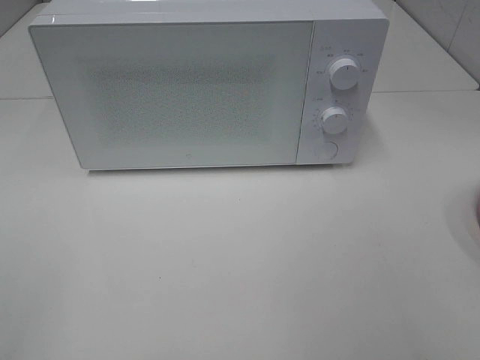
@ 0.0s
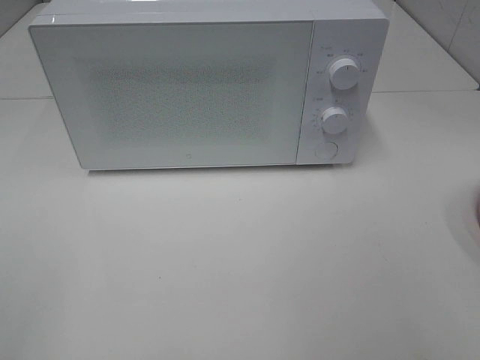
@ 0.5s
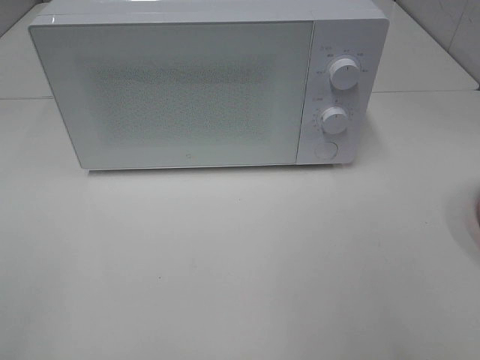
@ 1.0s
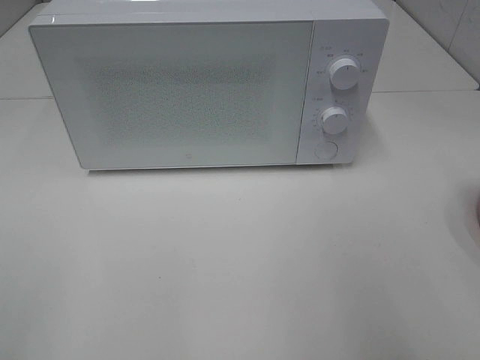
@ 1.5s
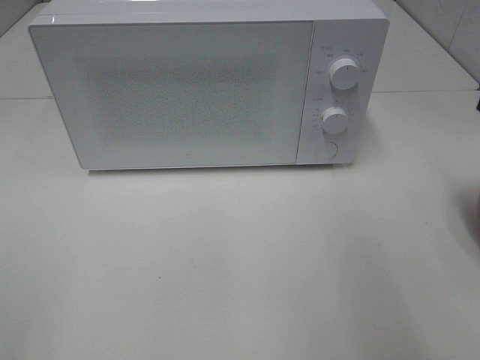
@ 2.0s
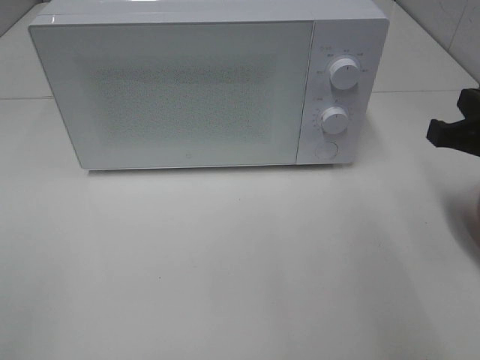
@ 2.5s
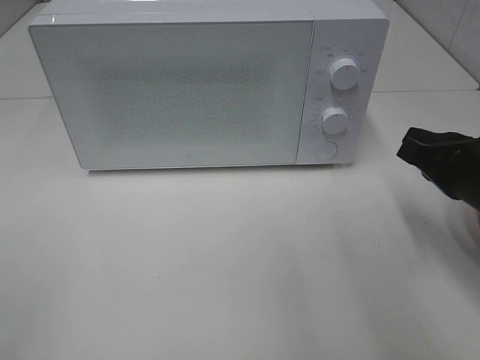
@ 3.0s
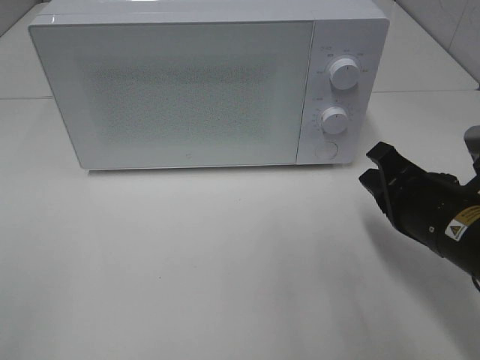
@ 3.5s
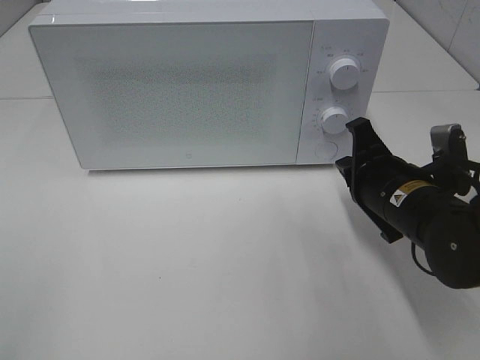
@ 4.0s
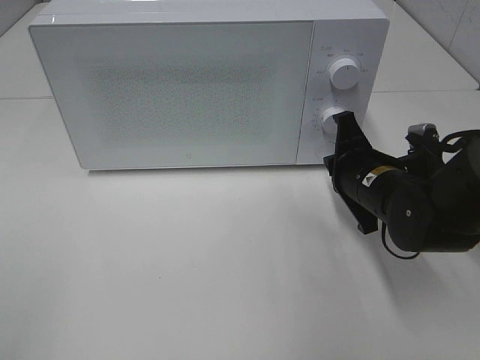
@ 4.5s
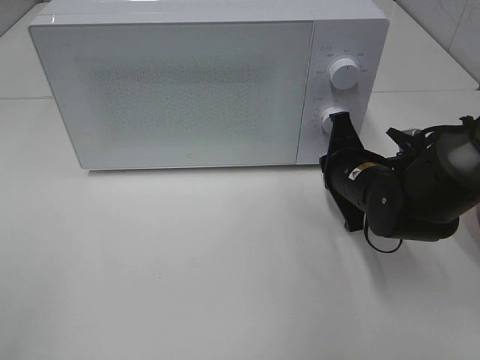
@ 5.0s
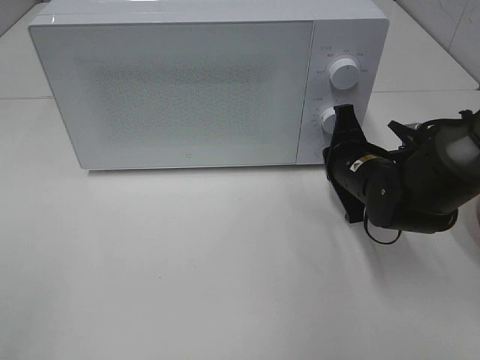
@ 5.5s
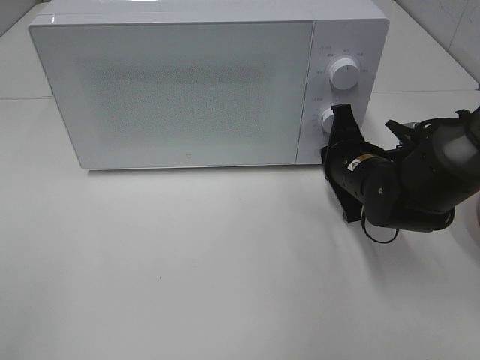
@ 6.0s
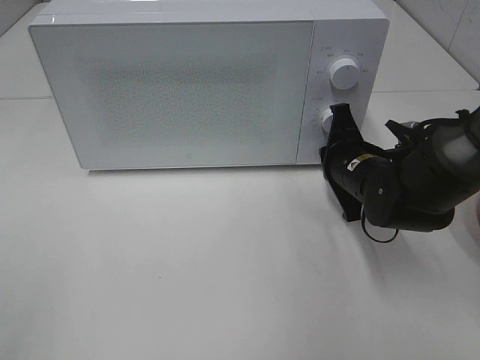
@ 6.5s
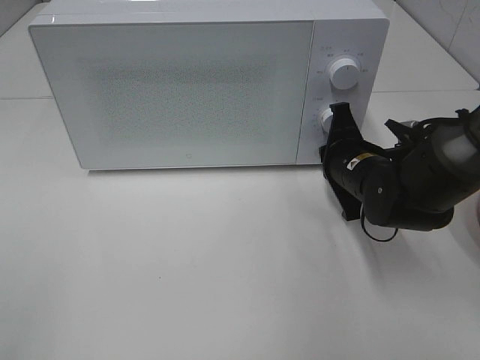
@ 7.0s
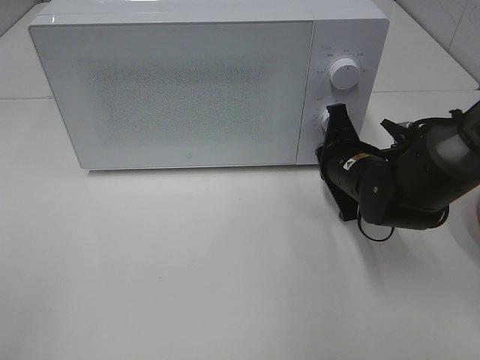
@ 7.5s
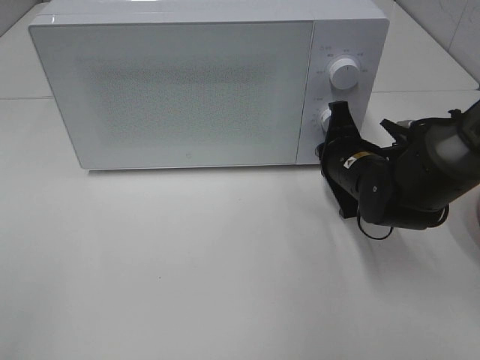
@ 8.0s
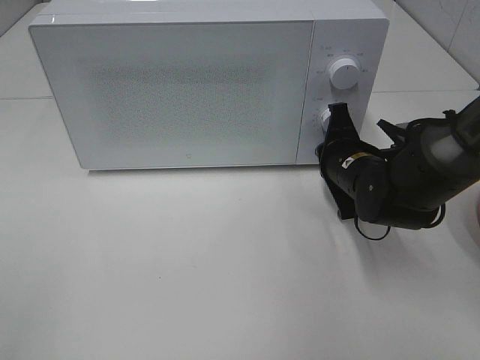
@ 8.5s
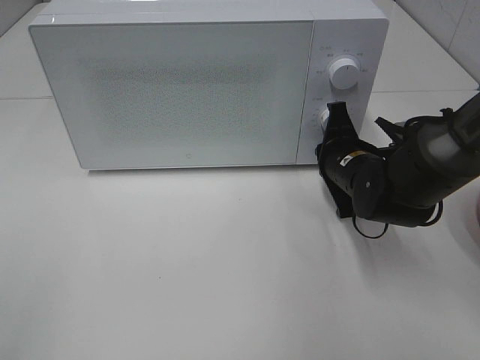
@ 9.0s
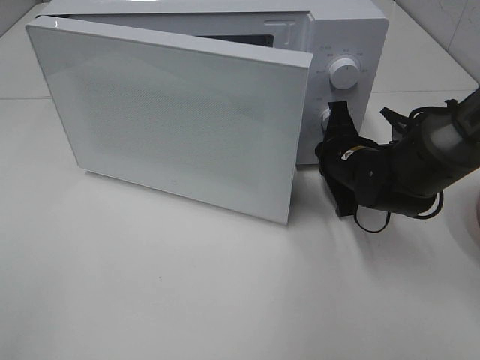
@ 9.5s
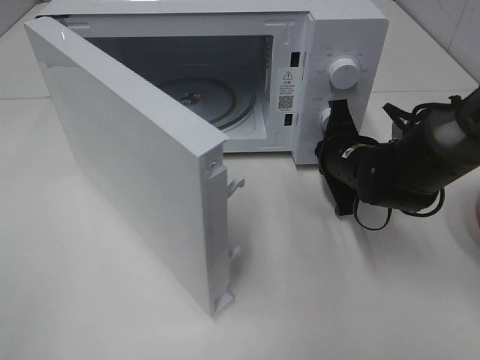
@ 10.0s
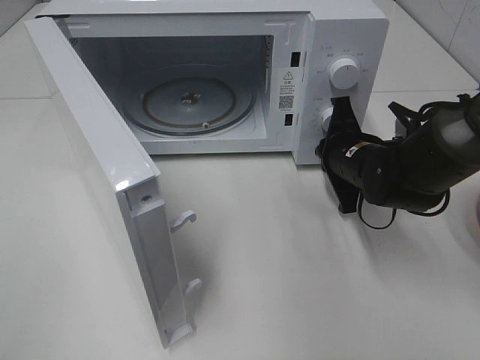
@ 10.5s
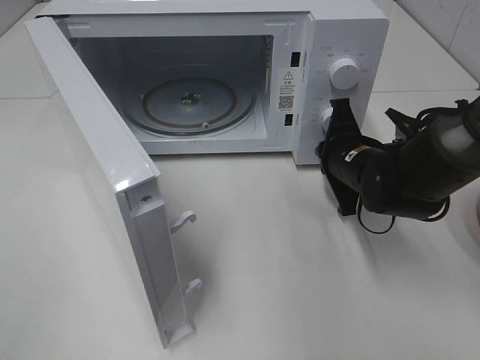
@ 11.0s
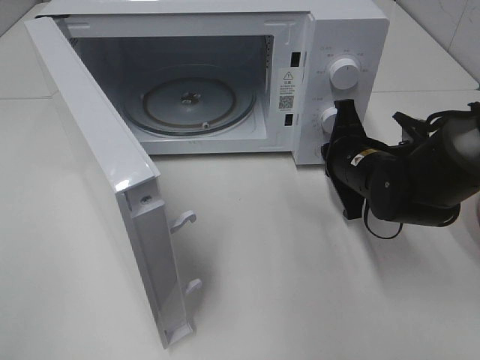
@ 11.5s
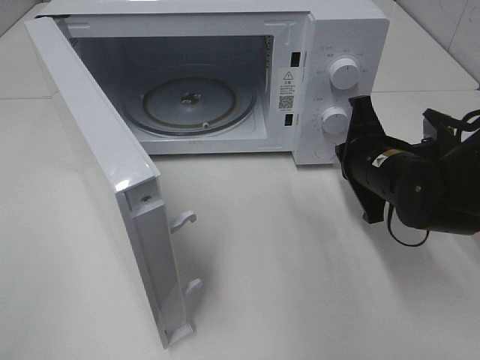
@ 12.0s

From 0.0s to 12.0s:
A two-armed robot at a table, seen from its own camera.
Task of the whole recording: Heat the burger.
Step, from 0.0s to 11.5s: Right hand: press the switch.
From 2.0s to 4.0s: The right gripper moves downward, to the left and forward, roughly 20 cm.
From 4.0s to 6.0s: The right gripper travels forward by about 5 cm.
From 6.0s to 8.0s: Both grippers stay about where they are.
From 10.0s to 12.0s: The right gripper ends up some 5 cm from where it was.

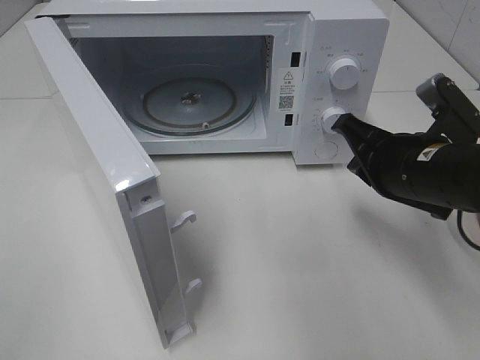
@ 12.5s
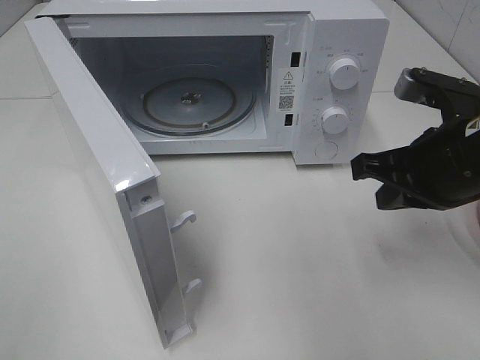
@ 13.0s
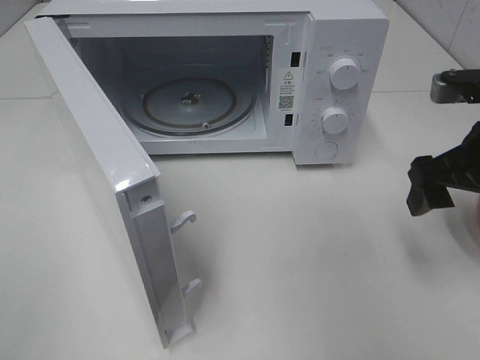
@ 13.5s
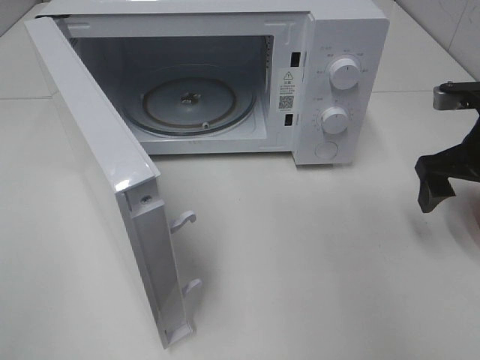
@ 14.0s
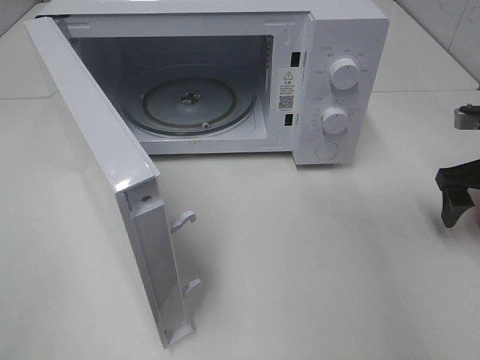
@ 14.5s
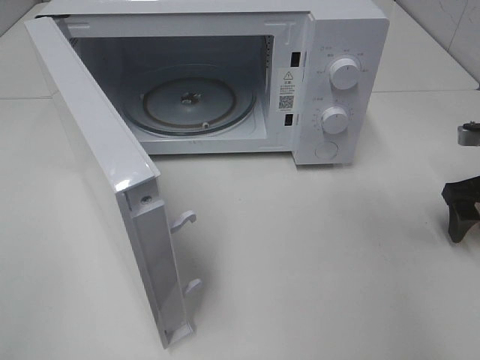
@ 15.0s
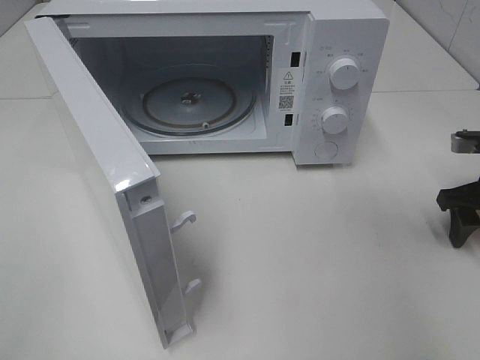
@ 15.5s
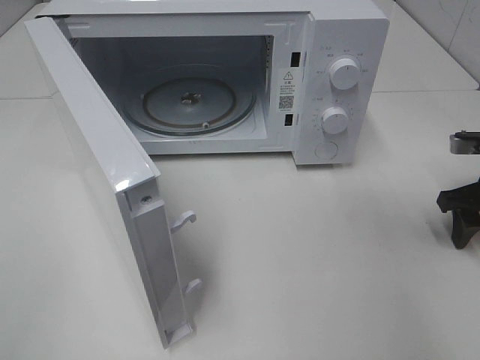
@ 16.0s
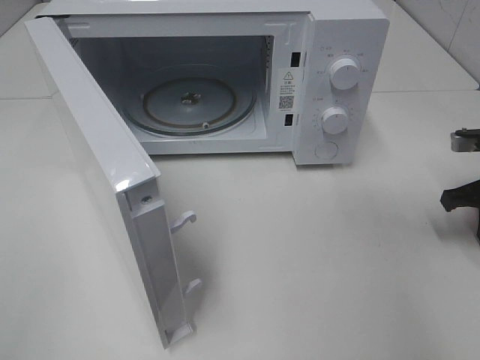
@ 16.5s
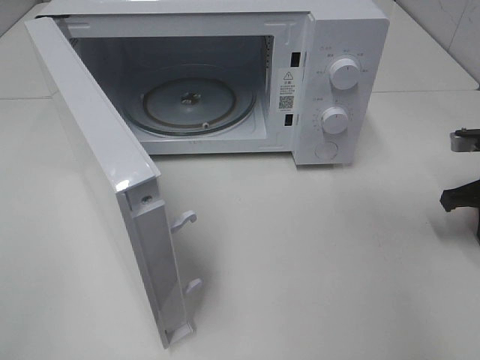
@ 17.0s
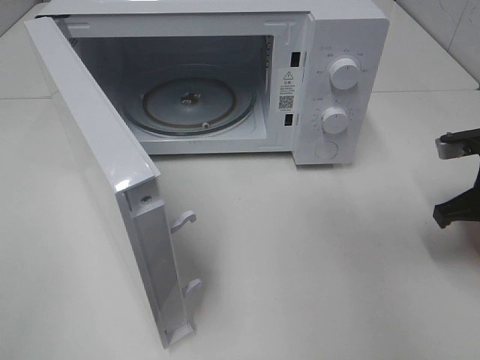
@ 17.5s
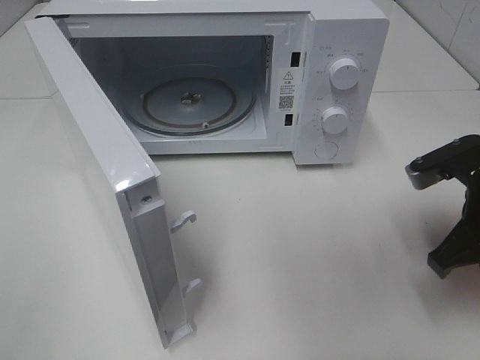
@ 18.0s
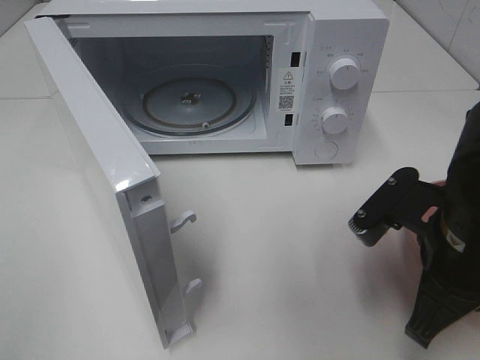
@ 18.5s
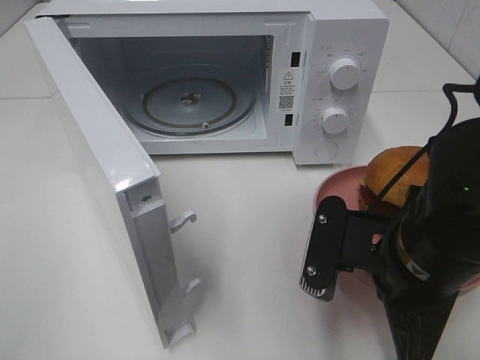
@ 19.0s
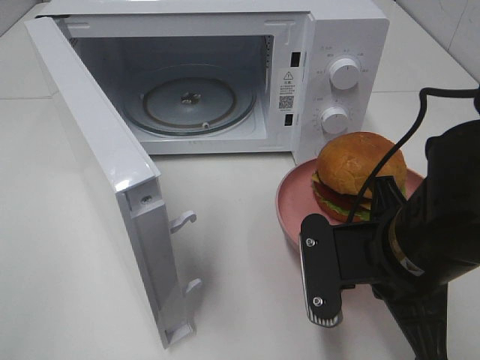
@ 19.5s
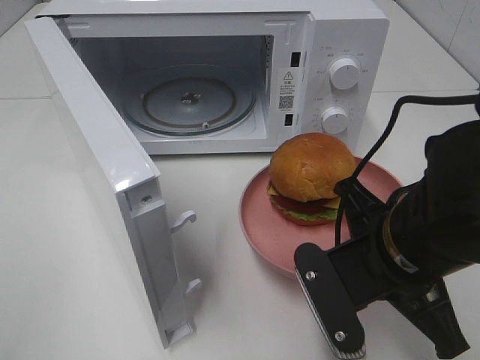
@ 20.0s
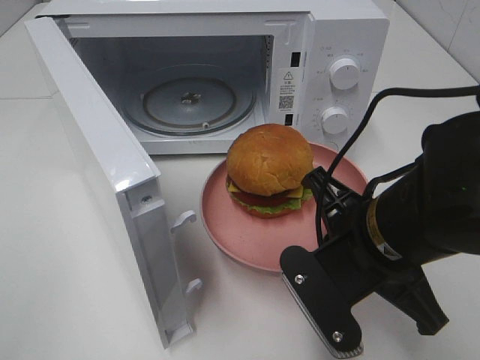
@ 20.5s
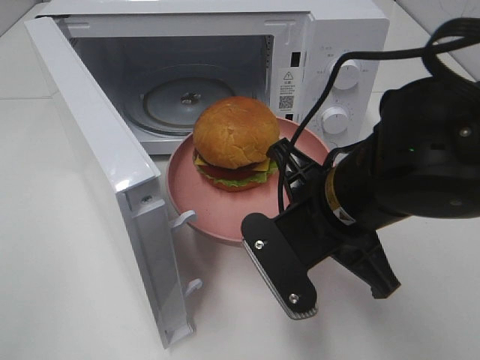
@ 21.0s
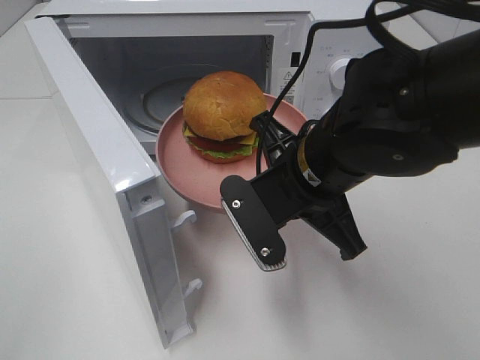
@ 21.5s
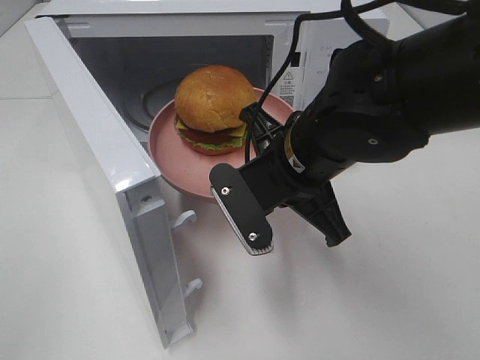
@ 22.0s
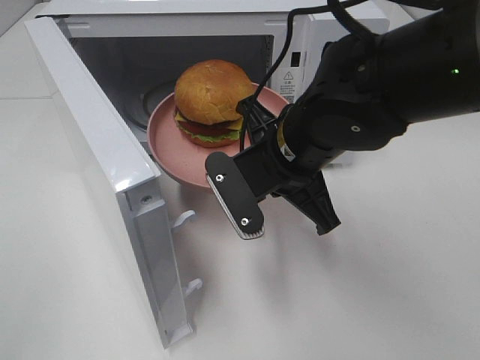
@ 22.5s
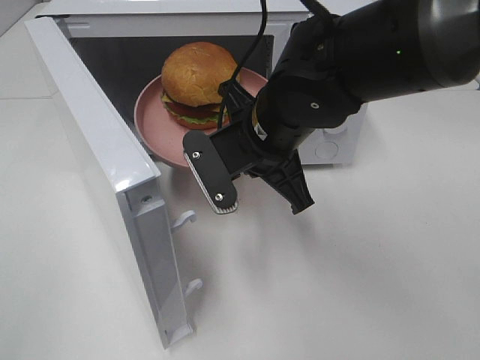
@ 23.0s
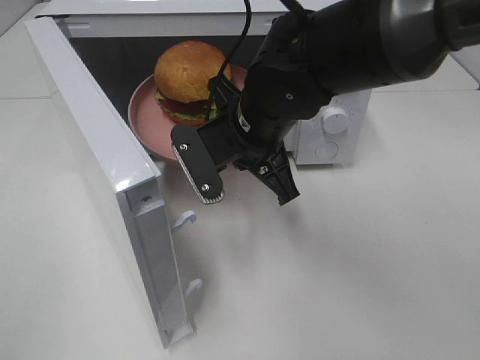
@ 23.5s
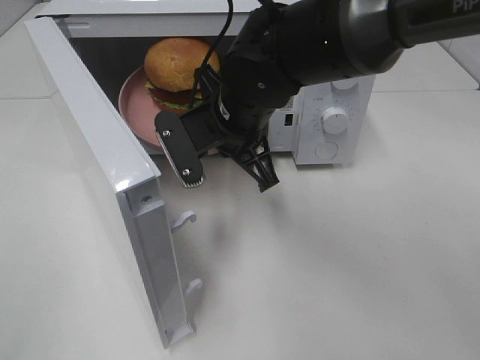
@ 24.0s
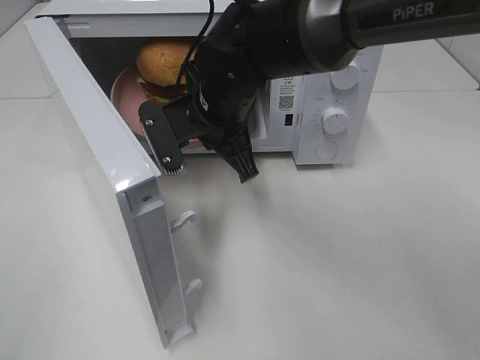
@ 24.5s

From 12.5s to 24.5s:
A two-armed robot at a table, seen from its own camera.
Task of the whole recording: Heat the burger.
Step, from 12.5s to 17.0s: Right hand: grab the plate with the hamburger.
From 12.5s to 14.5s: The right gripper heads to the right and forward, covering about 15 cm, and opens.
From 14.5s to 16.5s: The right gripper closes.
From 16.5s to 18.5s: The right gripper moves to the left and backward, about 20 cm.
From 18.5s to 20.5s: The right gripper travels to the left by approximately 5 cm.
From 20.5s to 22.5s: The right gripper travels forward and to the left by some 10 cm.
From 22.5s to 24.5s: The right gripper shifts some 10 cm forward and to the left.

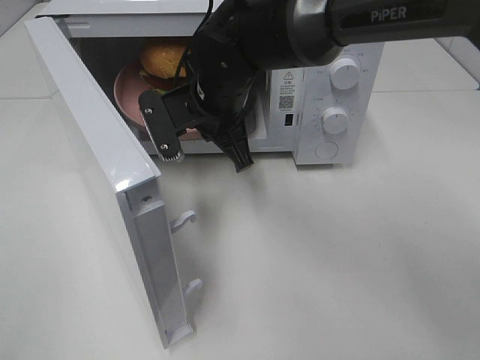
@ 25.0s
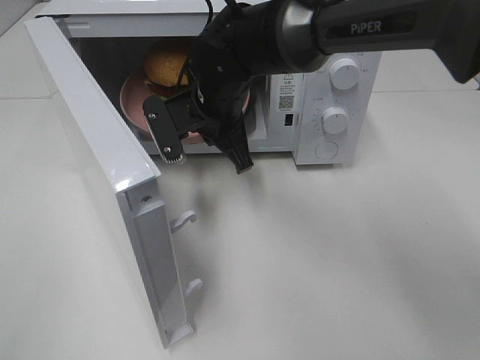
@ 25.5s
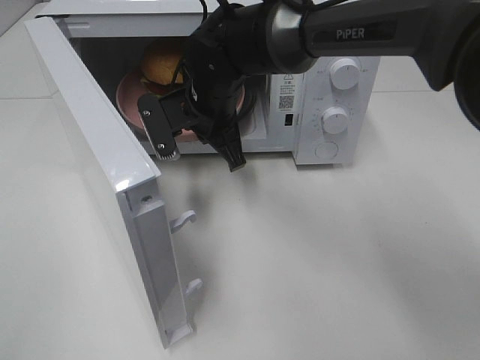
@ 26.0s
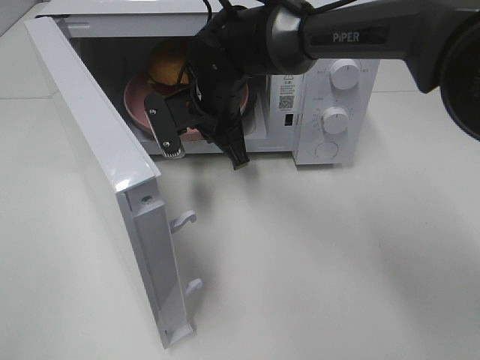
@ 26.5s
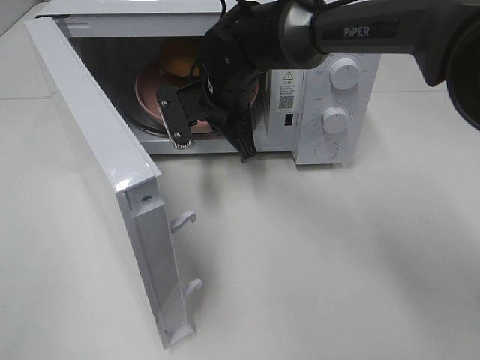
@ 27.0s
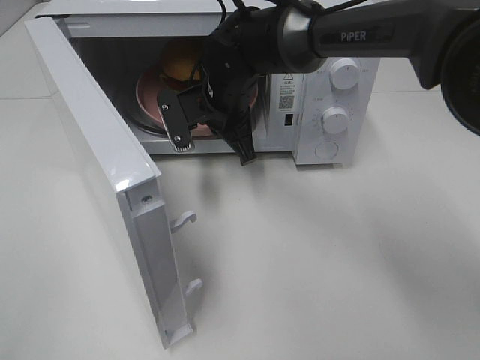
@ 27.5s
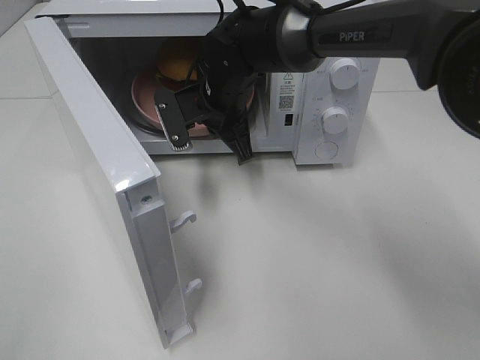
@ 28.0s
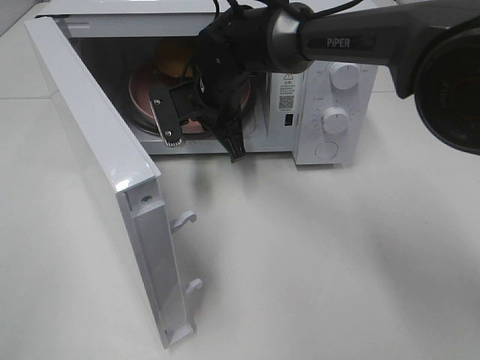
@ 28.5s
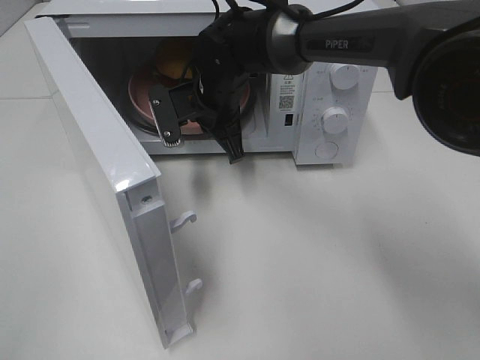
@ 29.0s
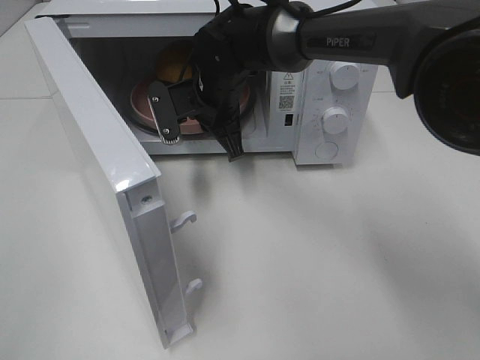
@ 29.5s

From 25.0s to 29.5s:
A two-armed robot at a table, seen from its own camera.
Task of the whole recording: Heat the burger.
From 25.0s to 27.0s: The right gripper moves roughly 5 cm.
From 27.0s to 29.5s: There are only small adjustments of the grippers.
